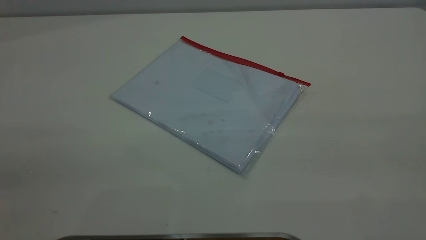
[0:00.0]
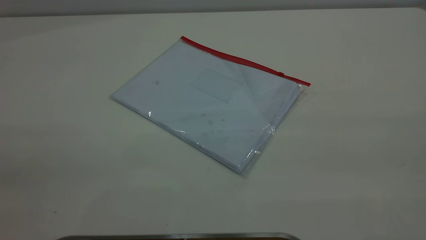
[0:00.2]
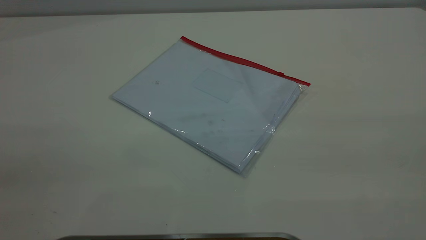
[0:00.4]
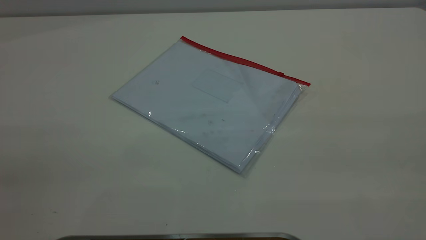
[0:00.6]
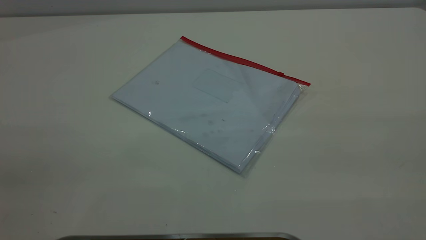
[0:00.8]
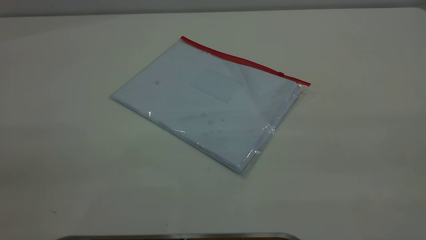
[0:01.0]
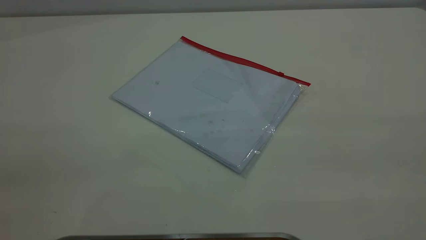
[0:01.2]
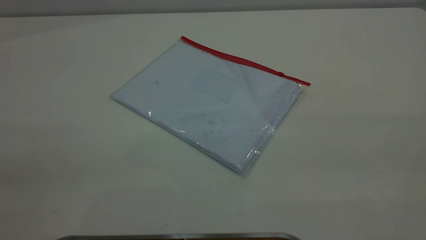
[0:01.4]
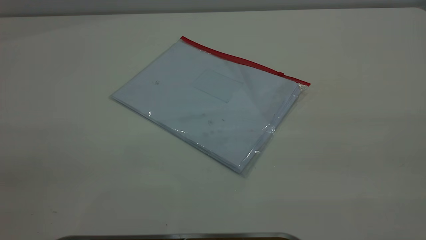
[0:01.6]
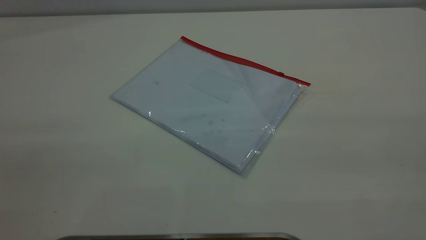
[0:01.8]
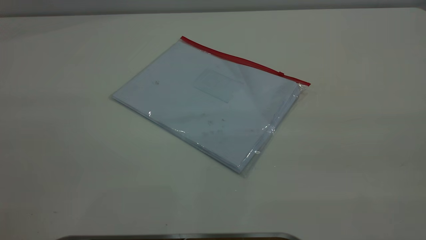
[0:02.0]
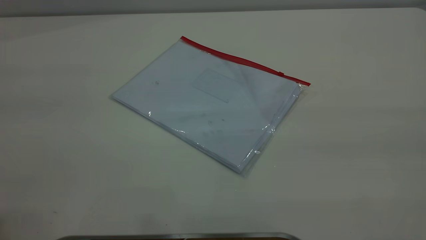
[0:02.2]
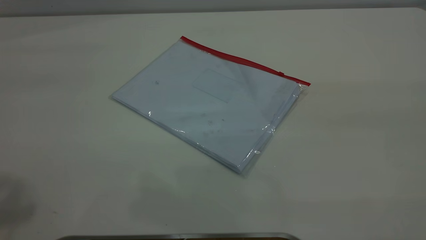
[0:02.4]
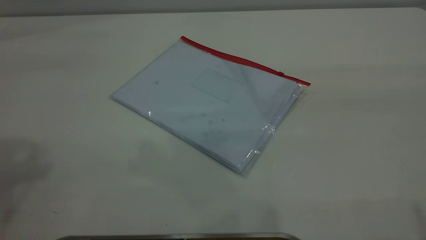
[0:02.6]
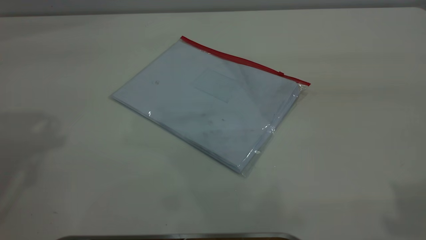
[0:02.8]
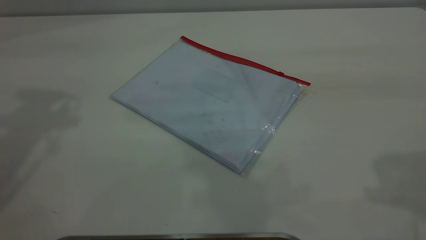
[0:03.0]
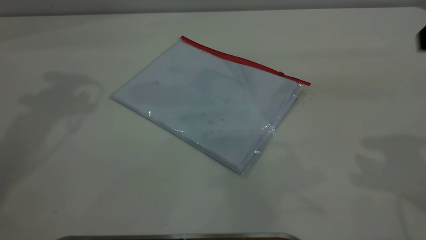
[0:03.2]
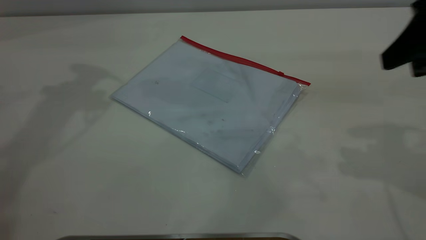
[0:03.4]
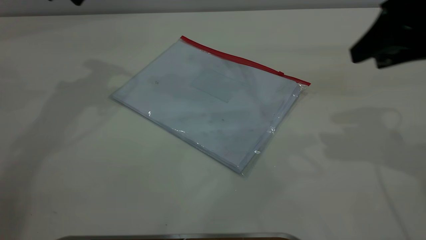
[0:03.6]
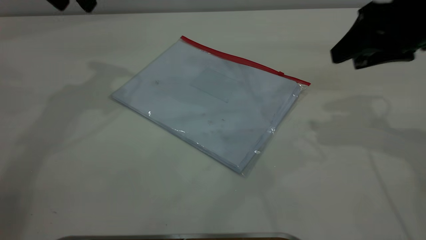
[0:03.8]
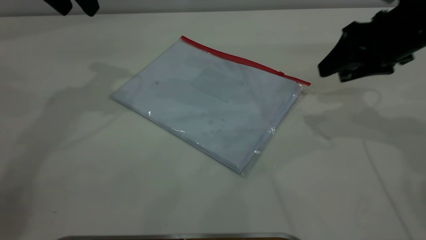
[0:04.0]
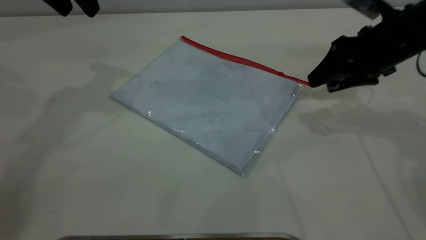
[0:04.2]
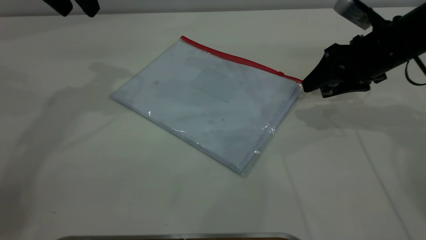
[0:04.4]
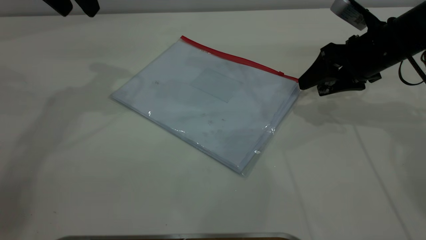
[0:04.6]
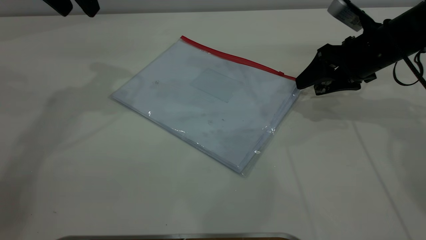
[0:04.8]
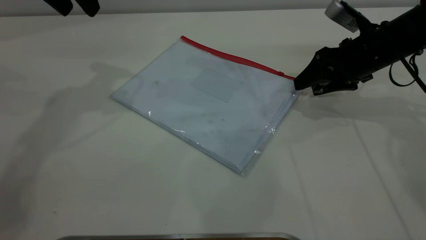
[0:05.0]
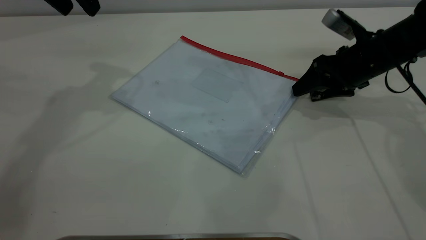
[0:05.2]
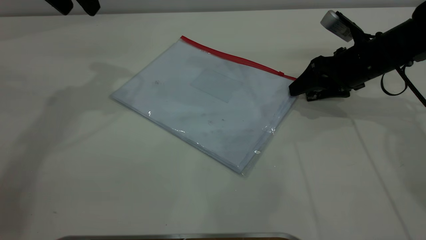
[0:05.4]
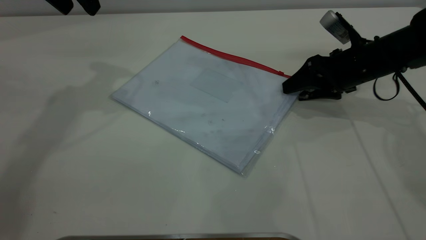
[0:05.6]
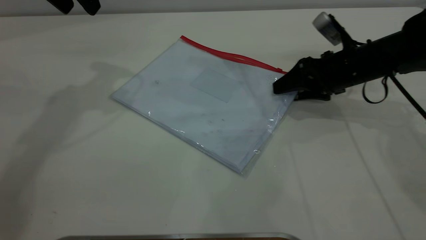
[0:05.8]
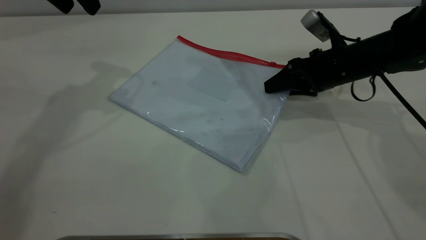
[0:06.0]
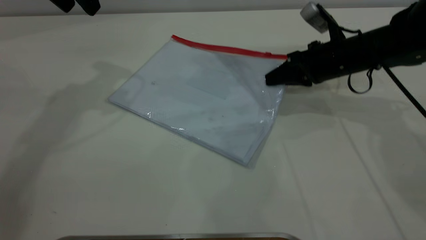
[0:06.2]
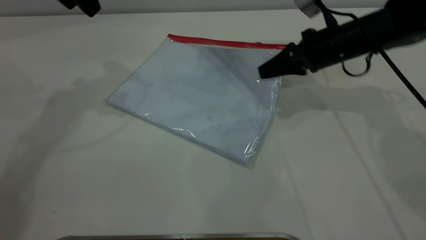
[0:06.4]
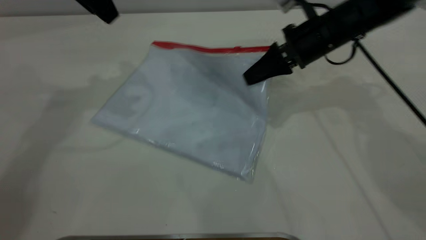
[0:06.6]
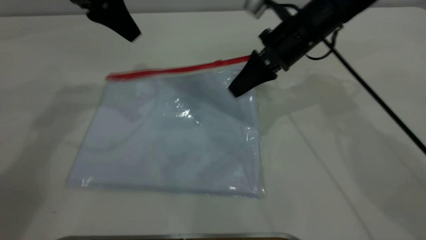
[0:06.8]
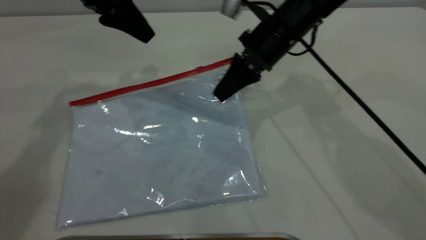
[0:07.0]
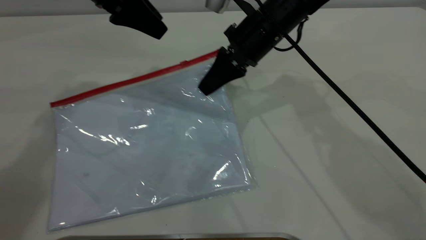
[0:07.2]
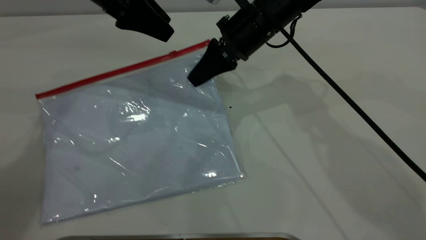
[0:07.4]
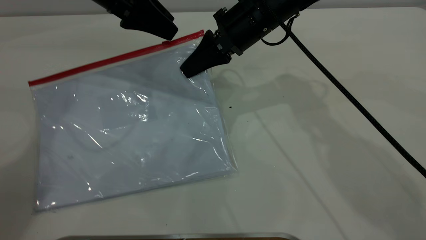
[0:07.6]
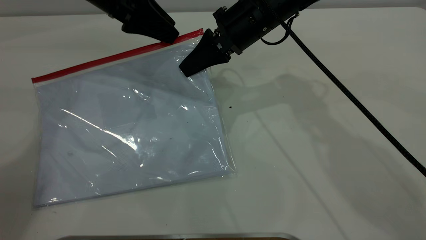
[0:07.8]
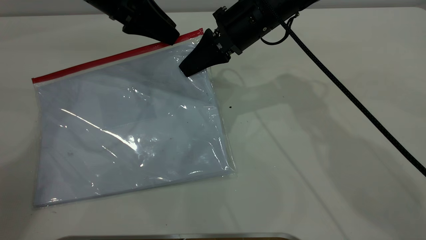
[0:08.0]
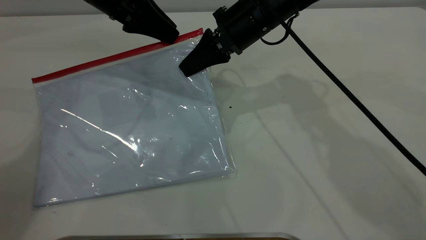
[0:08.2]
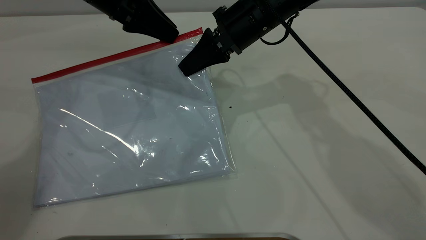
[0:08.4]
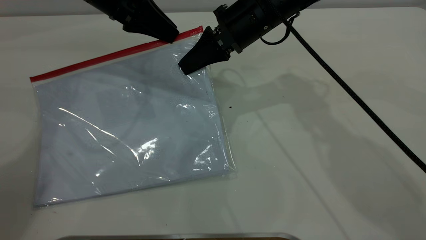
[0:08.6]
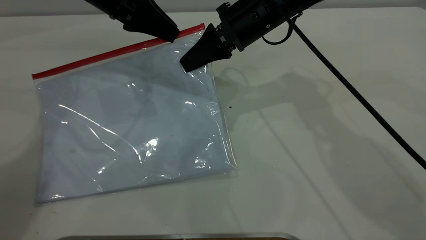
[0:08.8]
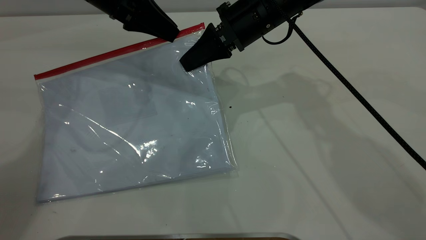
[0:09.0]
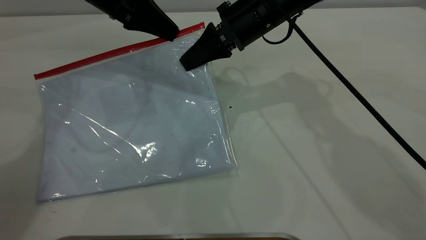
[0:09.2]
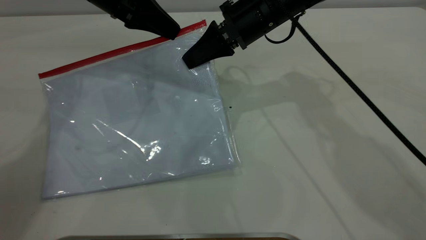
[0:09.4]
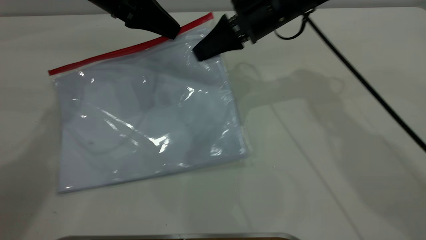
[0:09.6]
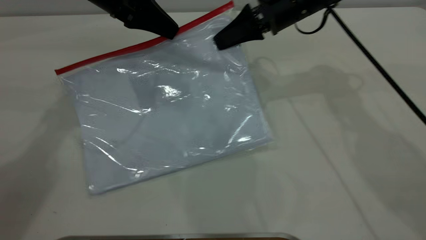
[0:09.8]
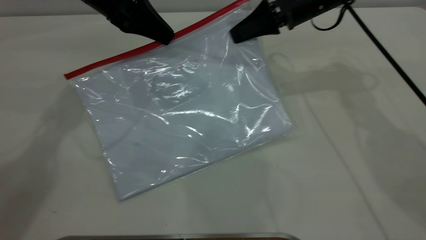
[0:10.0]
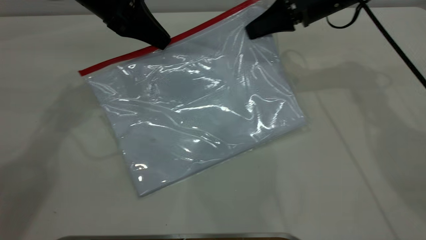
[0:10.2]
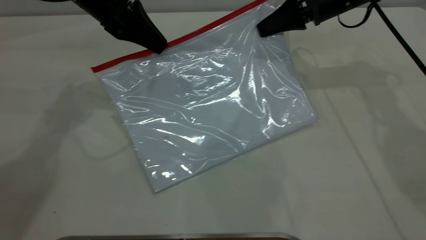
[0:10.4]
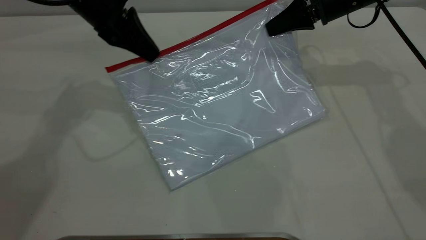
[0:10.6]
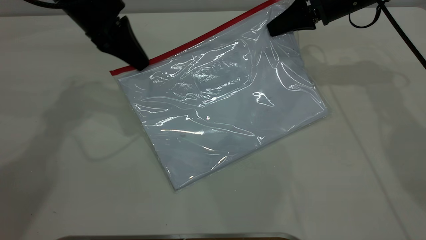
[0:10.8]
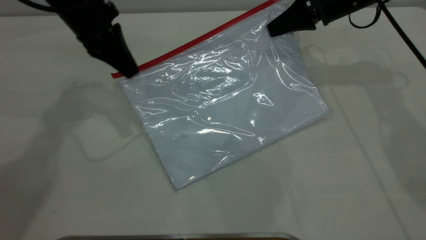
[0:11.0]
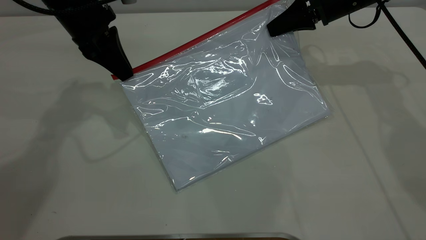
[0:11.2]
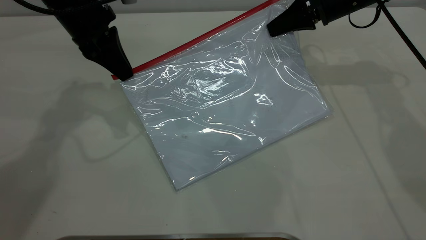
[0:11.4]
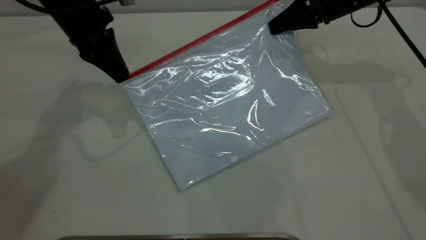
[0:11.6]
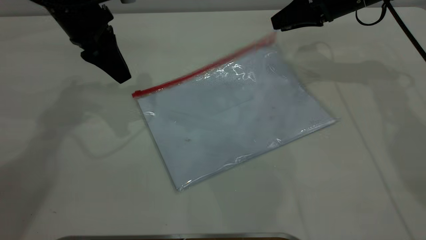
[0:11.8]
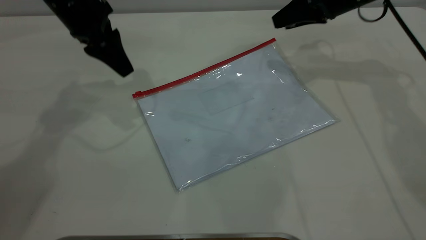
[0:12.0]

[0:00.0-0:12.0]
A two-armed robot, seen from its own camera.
Step, 0:00.0 to 0:06.2: Pick up the transparent plastic bag with the right gripper.
Step, 0:06.4 to 0:11.0: Pulling up the zipper on the transparent plastic bag with the left gripper to close it.
Step, 0:11.2 to 0:12.0: Place the transparent plastic bag.
0:00.0 to 0:01.6: The two grippers keep their place.
0:03.0 to 0:04.4: The right gripper goes approximately 25 cm downward and forward; the left gripper heads to the right, forward and downward, covering approximately 10 cm.
0:04.4 to 0:06.0: The right gripper goes approximately 5 cm downward, and closes its fingers.
0:06.0 to 0:07.6: The right gripper travels to the left and upward by about 15 cm, and closes its fingers. Meanwhile the left gripper heads downward, covering some 10 cm.
0:07.6 to 0:09.0: The left gripper closes.
0:09.0 to 0:10.4: The right gripper shifts approximately 15 cm to the right.
0:10.4 to 0:12.0: The right gripper opens up. The left gripper opens.

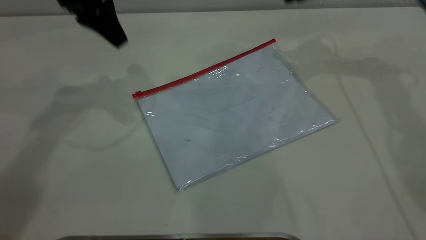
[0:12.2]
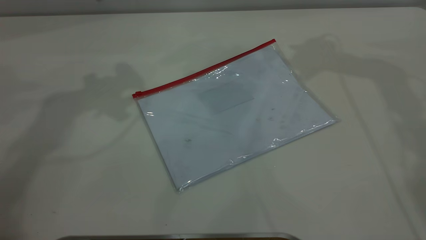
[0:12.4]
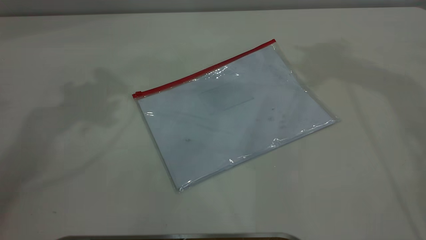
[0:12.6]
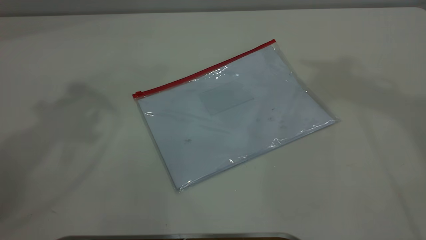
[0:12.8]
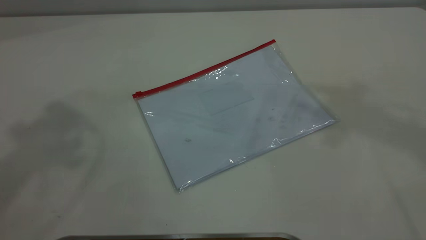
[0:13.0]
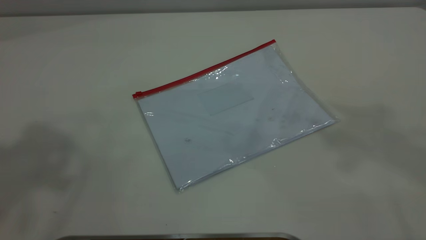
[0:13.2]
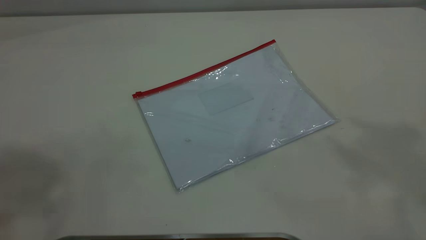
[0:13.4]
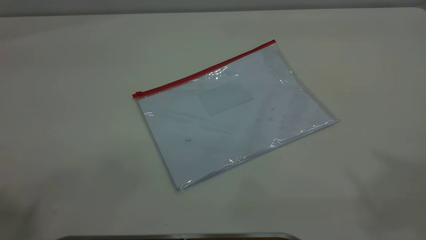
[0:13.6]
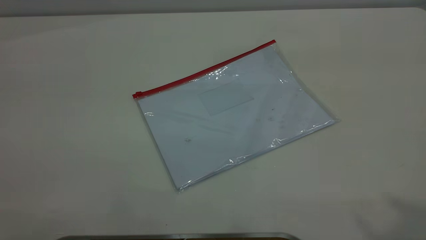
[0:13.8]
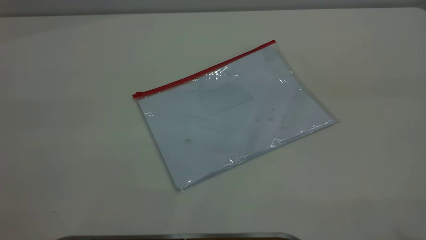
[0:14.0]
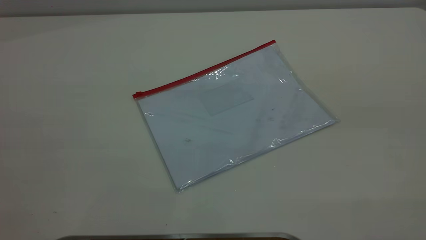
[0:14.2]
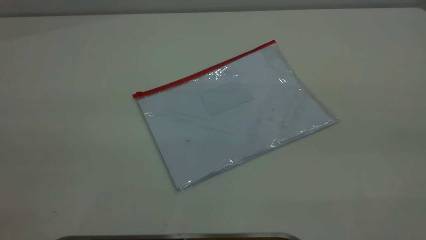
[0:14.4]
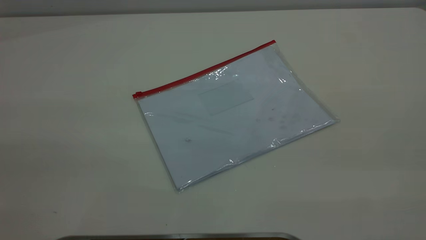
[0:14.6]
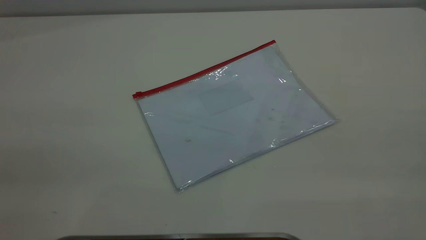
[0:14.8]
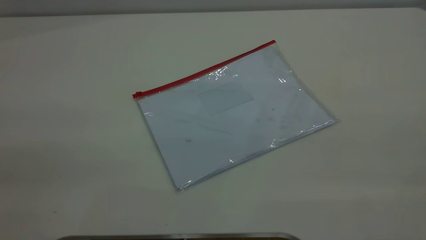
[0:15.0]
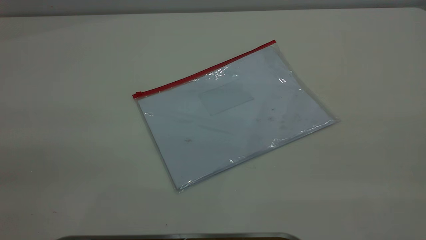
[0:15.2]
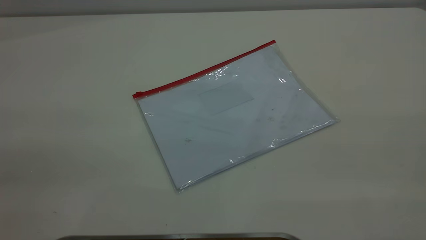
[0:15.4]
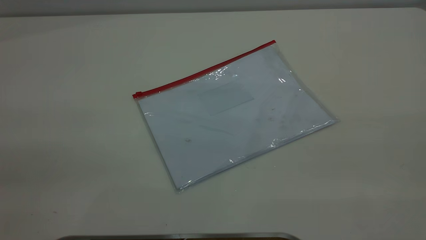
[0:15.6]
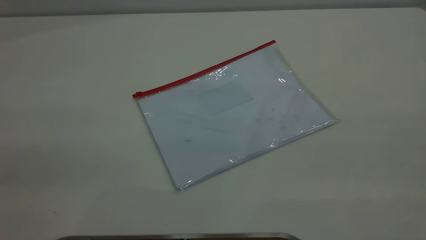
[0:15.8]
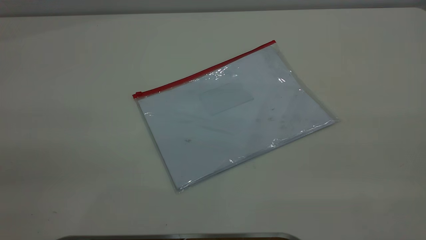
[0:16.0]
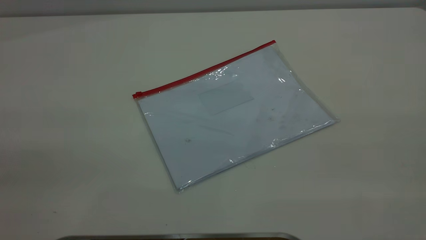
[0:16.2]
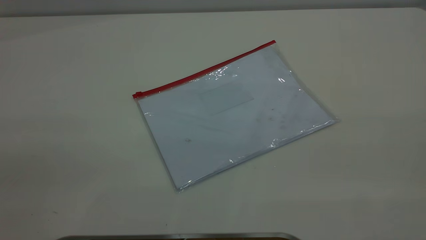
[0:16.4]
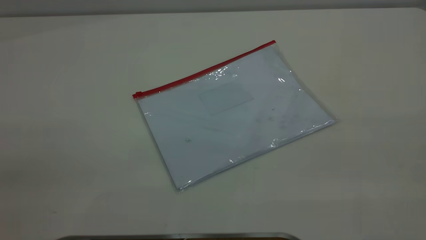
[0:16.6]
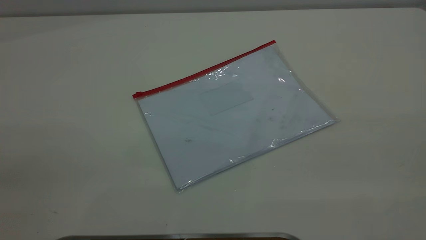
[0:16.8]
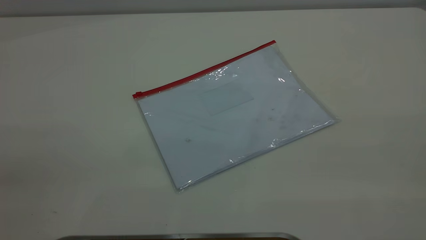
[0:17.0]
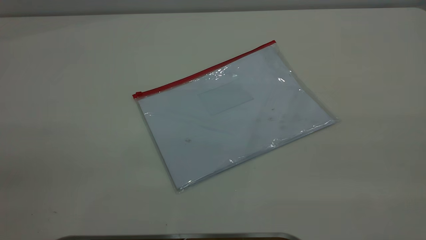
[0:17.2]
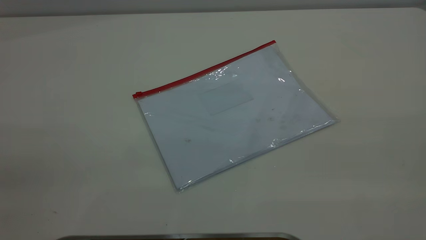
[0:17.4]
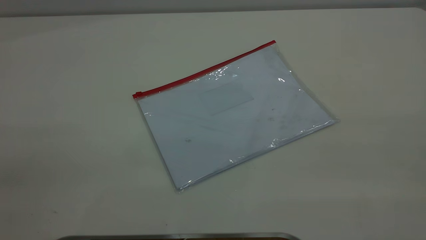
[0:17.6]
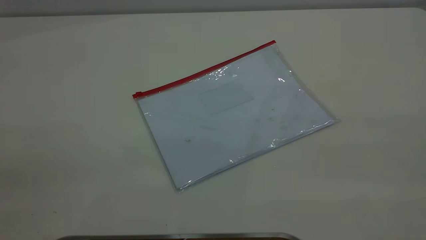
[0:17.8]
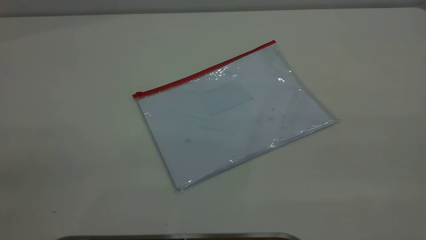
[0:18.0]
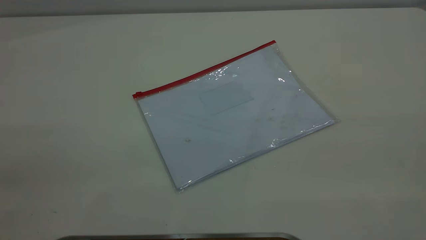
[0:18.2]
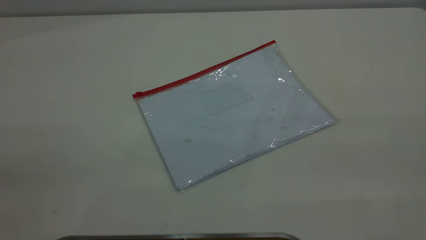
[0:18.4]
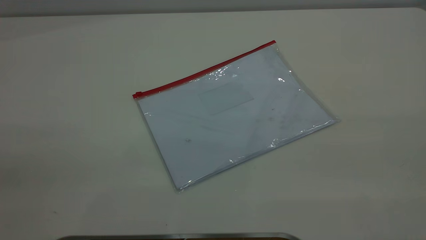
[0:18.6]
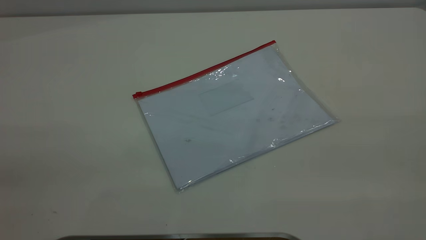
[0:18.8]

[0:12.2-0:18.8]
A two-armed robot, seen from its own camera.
0:12.2 to 0:13.8: The left gripper goes about 40 cm backward and upward.
0:17.2 to 0:18.8: Both grippers stay about where they are.
